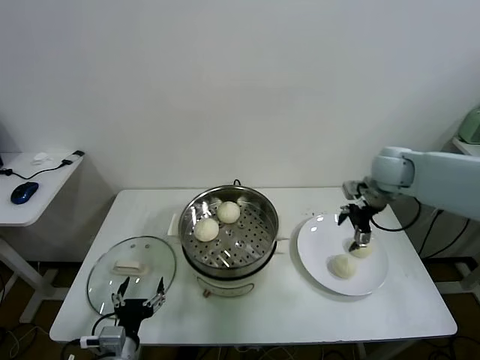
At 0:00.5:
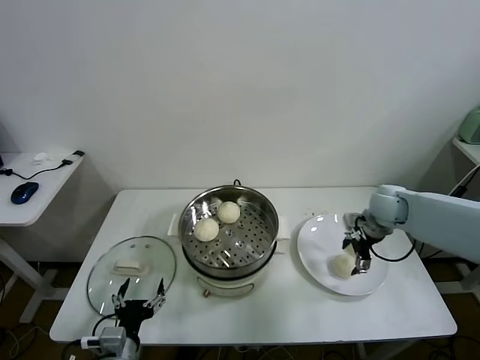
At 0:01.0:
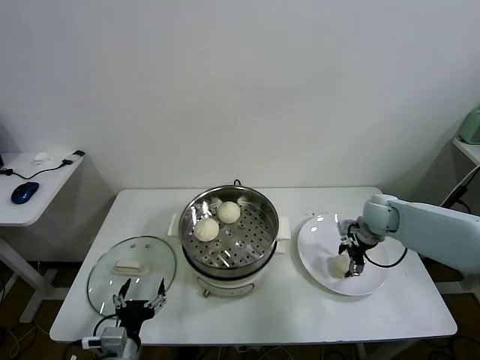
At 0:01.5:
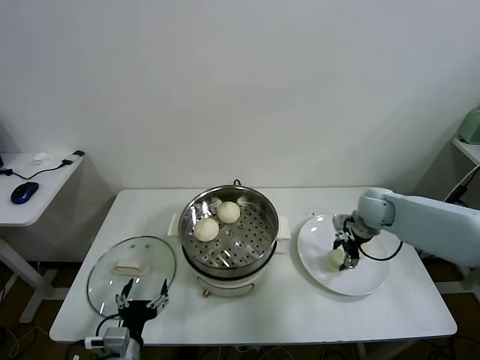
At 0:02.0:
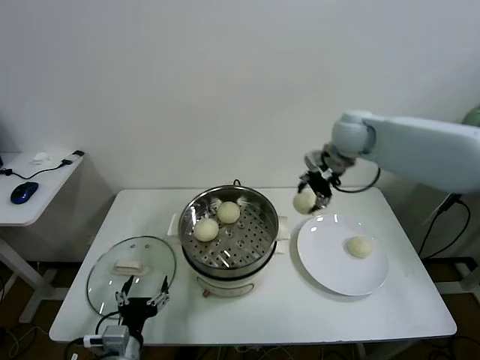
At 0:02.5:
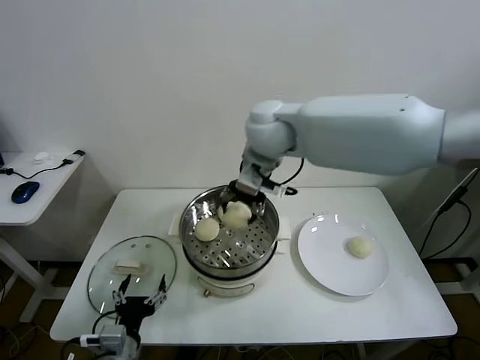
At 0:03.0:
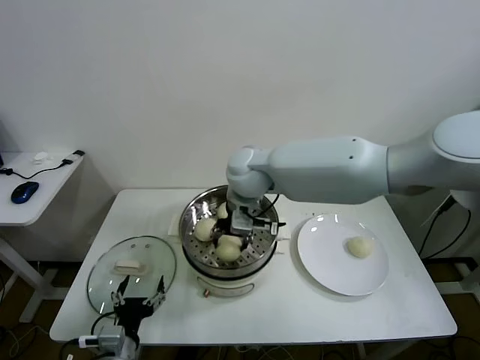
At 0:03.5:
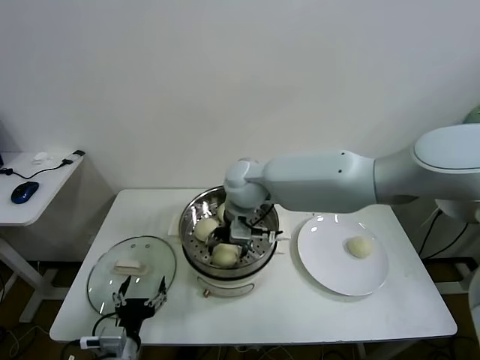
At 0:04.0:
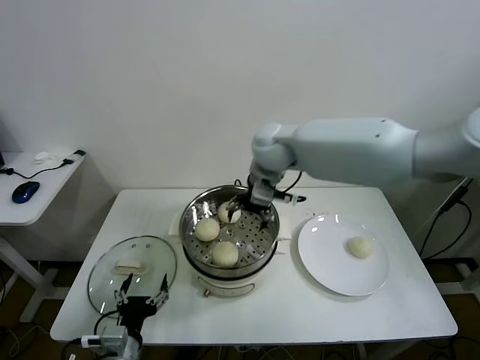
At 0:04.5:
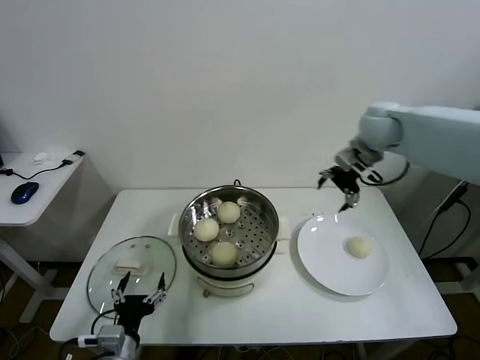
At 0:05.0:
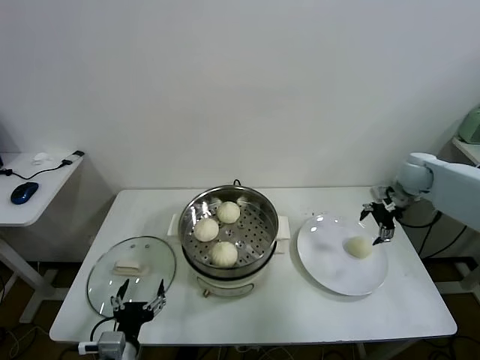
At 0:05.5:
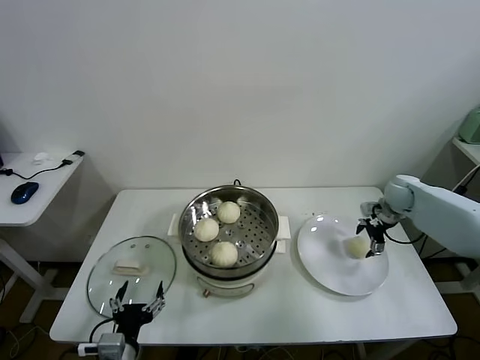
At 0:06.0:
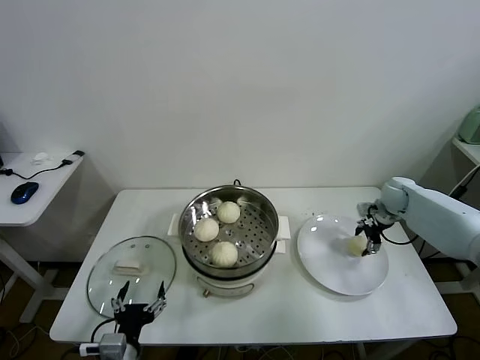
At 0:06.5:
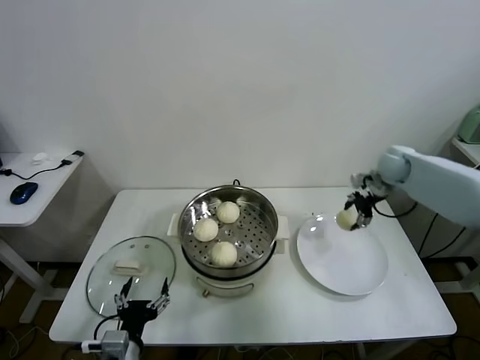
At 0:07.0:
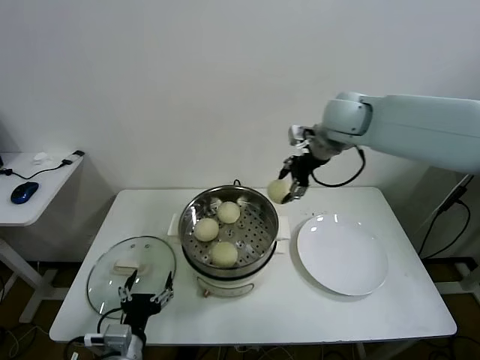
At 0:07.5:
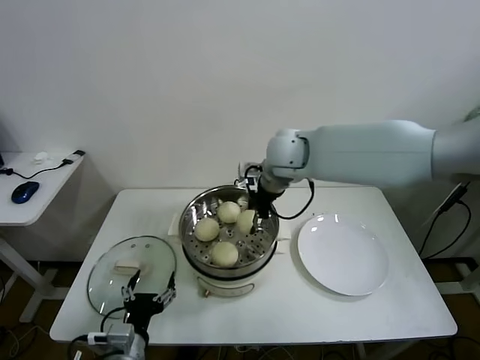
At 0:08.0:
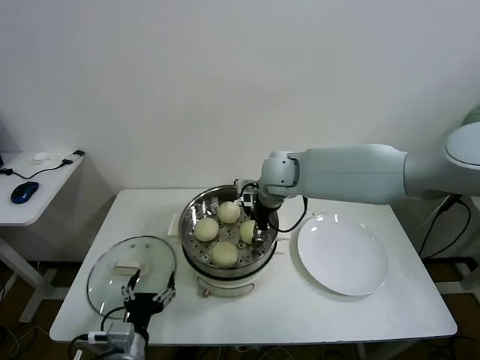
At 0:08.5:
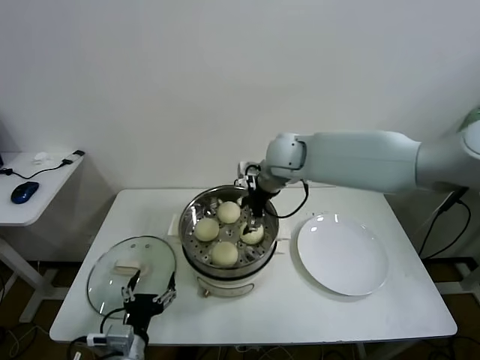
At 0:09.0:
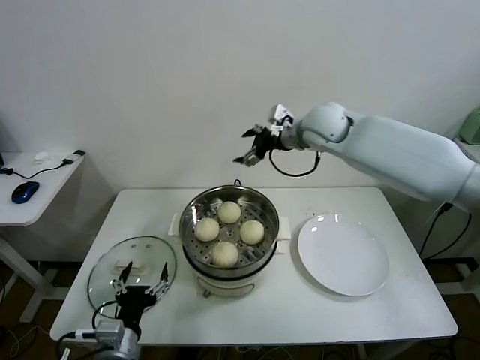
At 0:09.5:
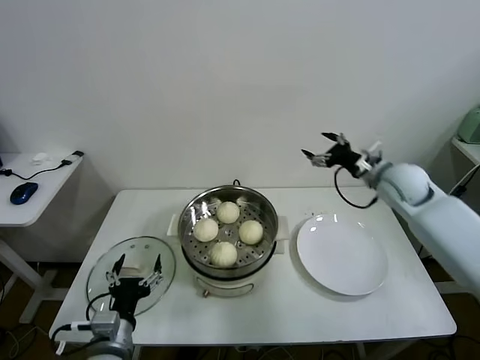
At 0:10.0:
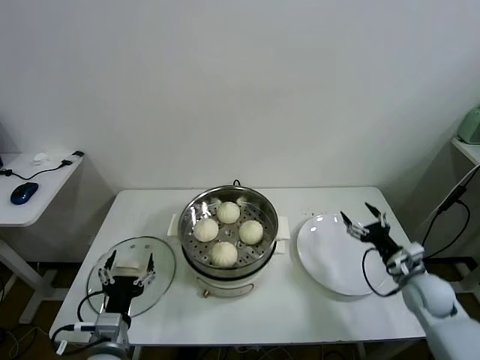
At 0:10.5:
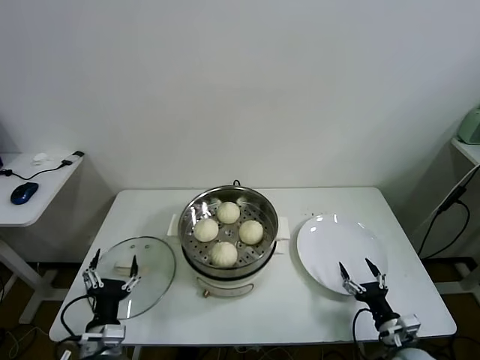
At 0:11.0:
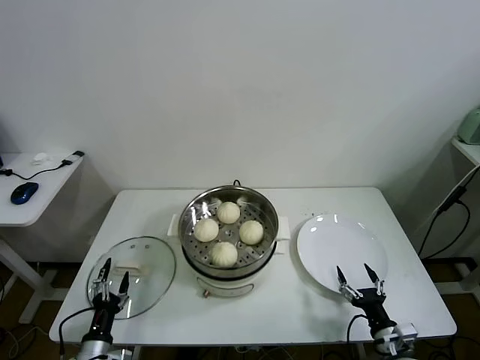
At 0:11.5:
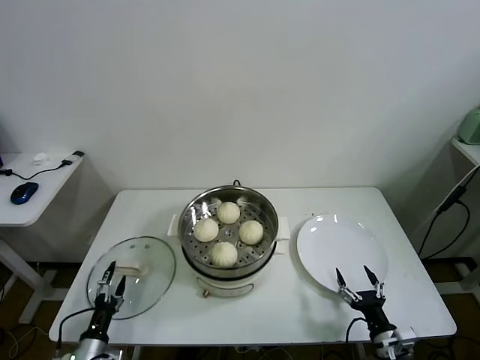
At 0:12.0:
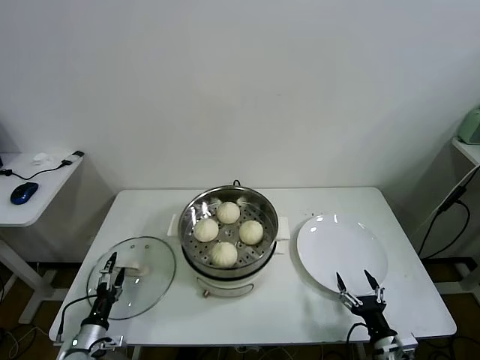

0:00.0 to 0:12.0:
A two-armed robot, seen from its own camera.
Task of the whole recording: take steamed baozi put them in steamer.
Step, 0:00.0 to 0:01.0: Grasp the baozi in the plate with right gripper.
Step, 0:01.5 to 0:03.5: Place the baozi on the steamer with right gripper.
Step, 0:04.0 to 0:06.0: Grasp the baozi in the plate with right gripper.
Step, 0:06.5 to 0:08.0: Place the baozi on the steamer with right gripper.
0:00.0 to 0:02.0: The right gripper is displaced to the left and upward by approximately 15 cm, and closes its fingers.
0:02.0 to 0:04.0: The right gripper travels to the left by approximately 15 cm, and opens.
0:04.0 to 0:06.0: The right gripper moves to the right and downward, some 40 cm, and closes up.
0:06.0 to 0:08.0: The right gripper travels to the left by roughly 35 cm.
0:08.0 to 0:10.0: The right gripper moves to the right, downward and backward, roughly 40 cm, and opens up.
0:10.0 to 0:12.0: The right gripper is displaced backward, downward and to the left by about 20 cm, while the left gripper travels downward and to the left by approximately 20 cm.

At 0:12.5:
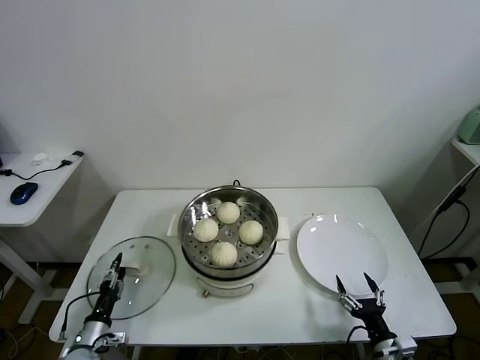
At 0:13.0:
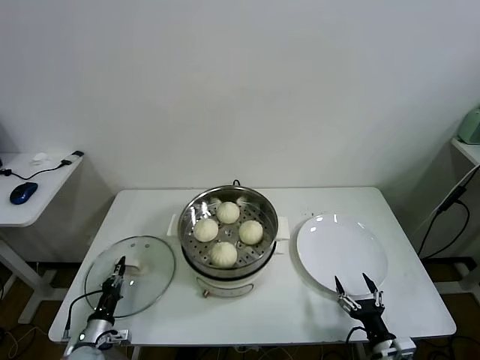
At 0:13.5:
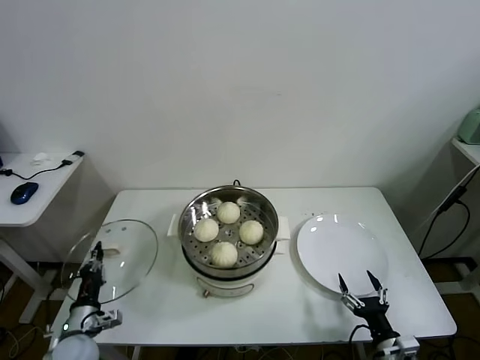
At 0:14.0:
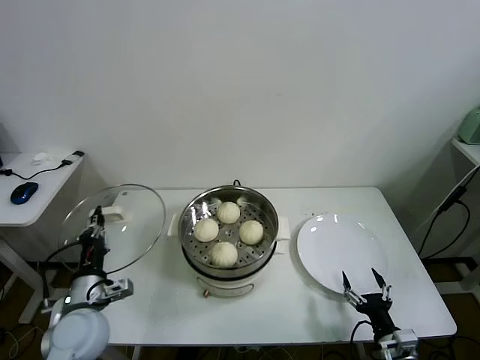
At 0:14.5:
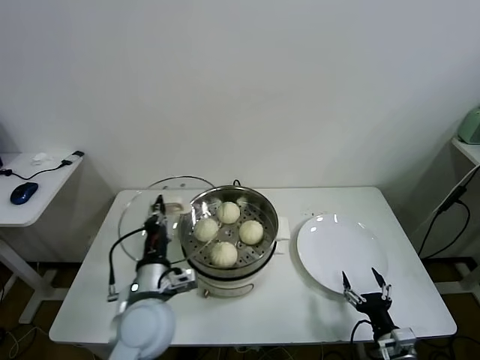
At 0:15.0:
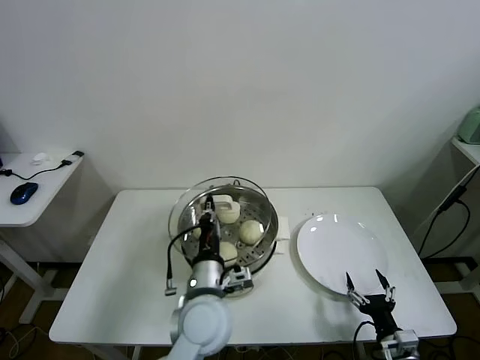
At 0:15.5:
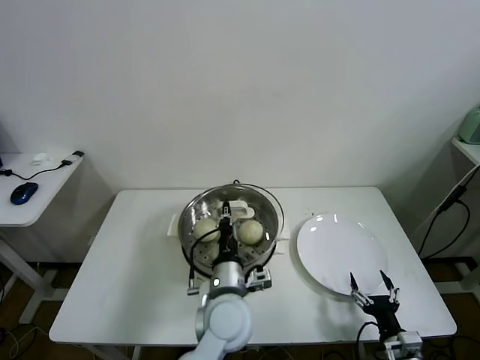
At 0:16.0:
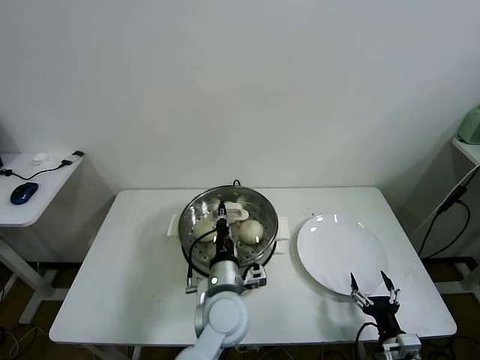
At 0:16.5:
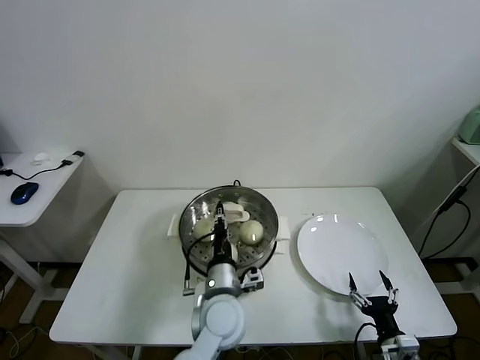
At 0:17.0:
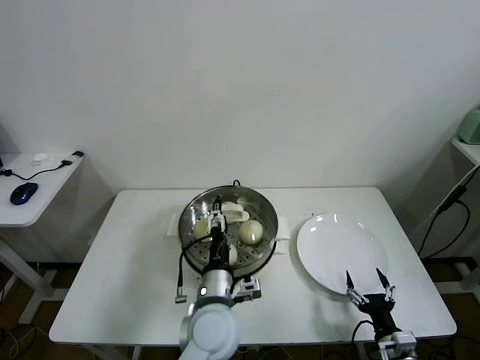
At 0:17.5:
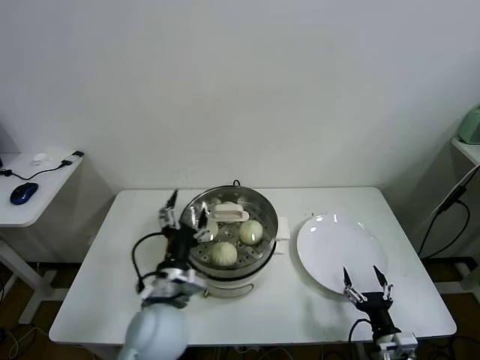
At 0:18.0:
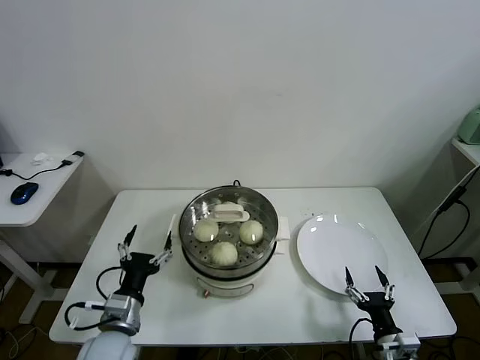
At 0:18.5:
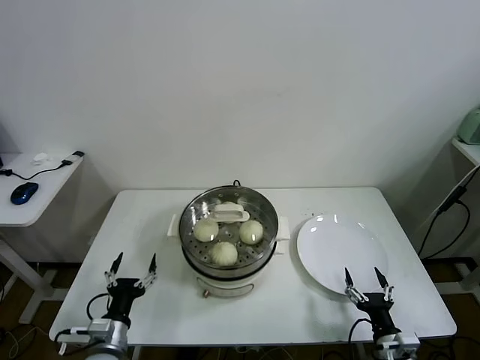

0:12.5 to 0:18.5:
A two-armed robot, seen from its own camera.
Task of the whole recording: take steamed baozi put them in steamer.
Step, 0:13.5 to 0:16.5: Place the pot lid on the steamer with left gripper.
0:12.5 to 0:14.5: The left gripper moves upward and to the right, roughly 30 cm, and closes its fingers.
0:14.5 to 0:16.5: The left gripper is displaced to the right by some 15 cm.
0:16.5 to 0:18.5: The left gripper travels to the left by about 25 cm, and opens.

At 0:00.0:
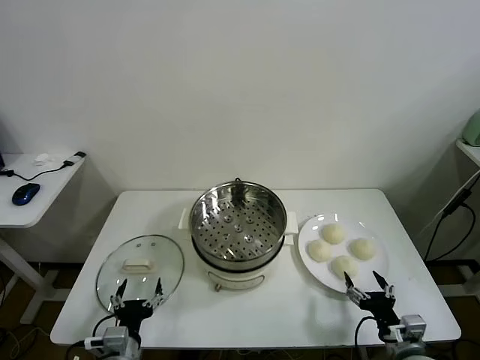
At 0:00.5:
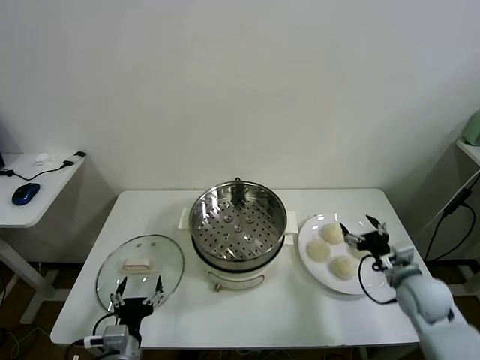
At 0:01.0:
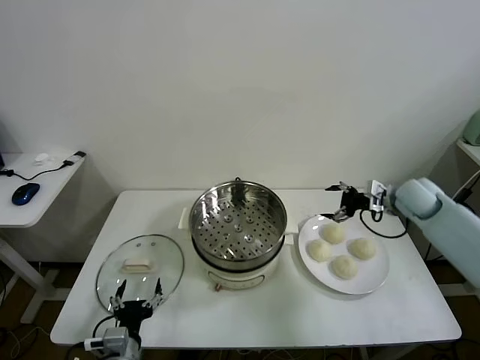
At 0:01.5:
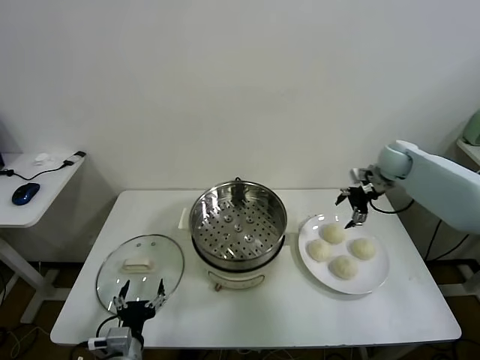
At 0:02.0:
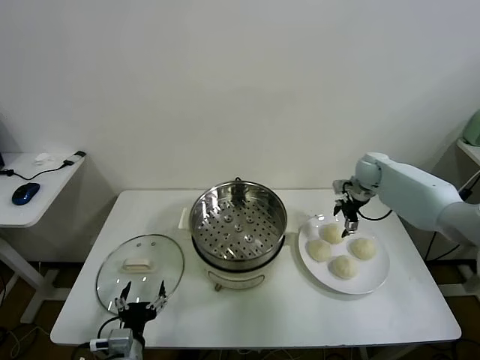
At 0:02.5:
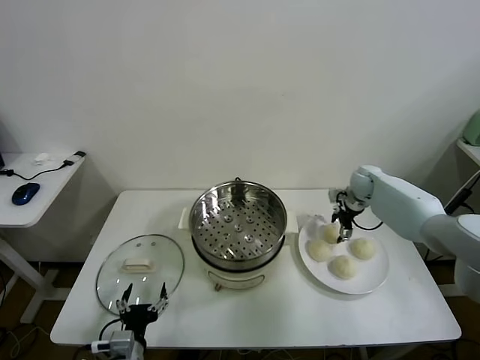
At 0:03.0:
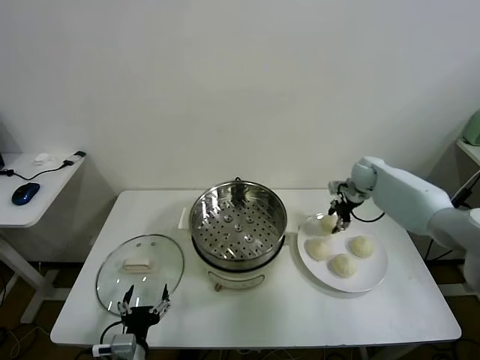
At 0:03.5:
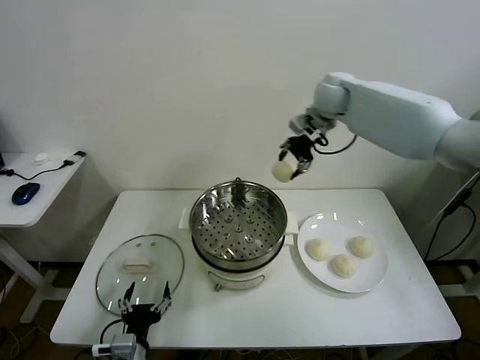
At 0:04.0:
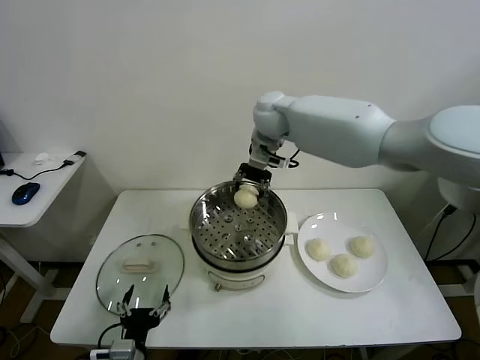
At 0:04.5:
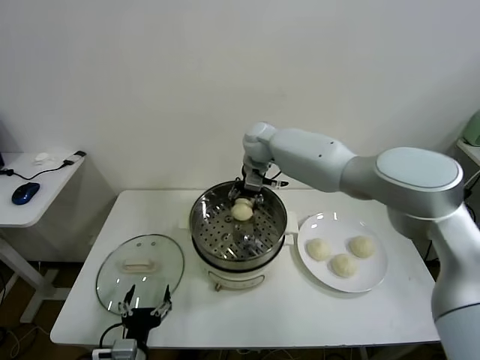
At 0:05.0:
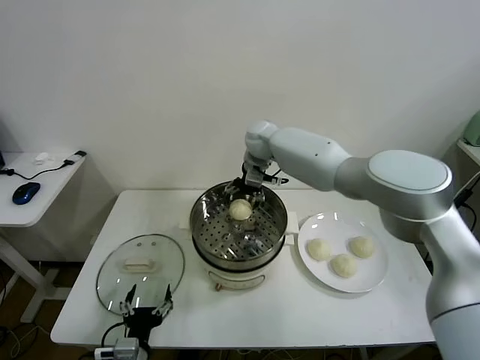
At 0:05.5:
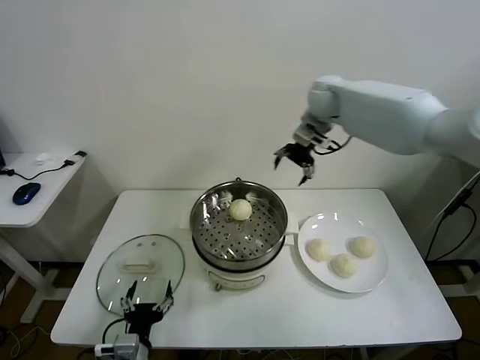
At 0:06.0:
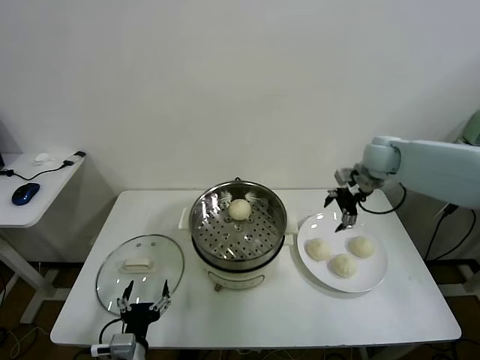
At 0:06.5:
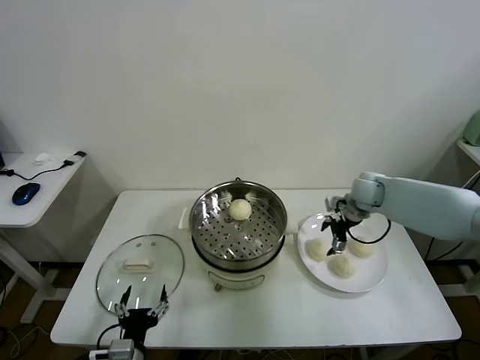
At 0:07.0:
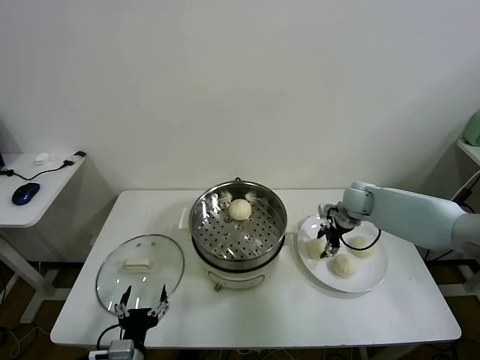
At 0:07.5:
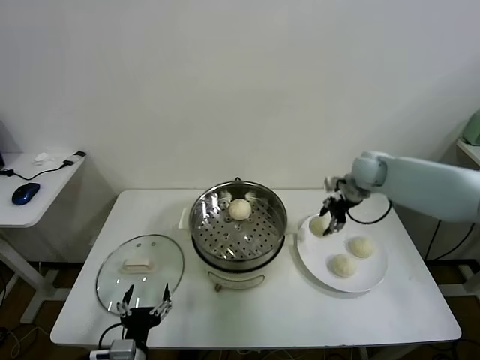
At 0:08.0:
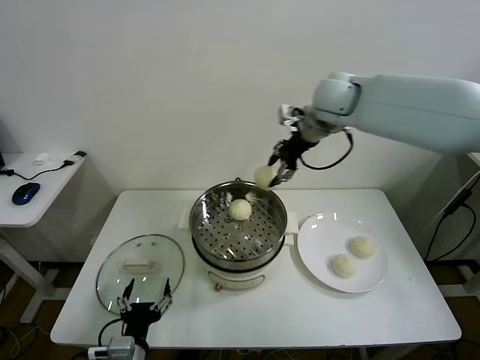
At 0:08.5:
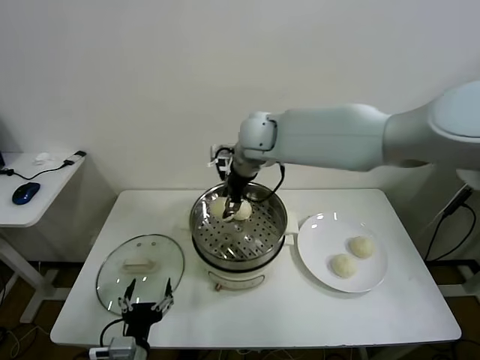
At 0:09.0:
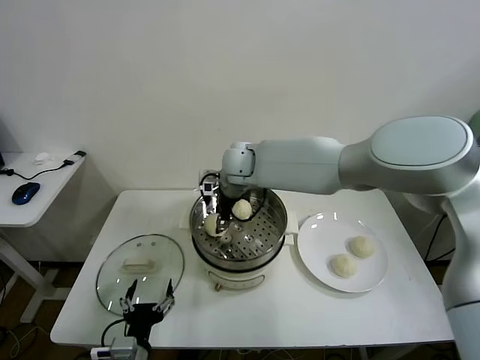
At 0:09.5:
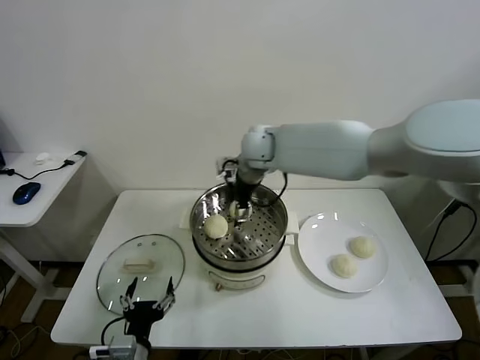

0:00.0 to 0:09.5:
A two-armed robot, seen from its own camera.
Task of the whole recording: take steamed baozi put them in steamer.
Step, 0:00.0 to 0:02.5: Grasp the baozi in the plate with right gripper.
Step, 0:03.0 to 0:04.5: Place the baozi on the steamer with right gripper.
Step, 0:05.5 to 0:07.0: Grasp the baozi in the plate with right gripper.
Step, 0:07.5 to 0:09.0: Place the baozi on the steamer with right gripper.
0:02.0 to 0:04.0: The right gripper moves to the left and upward, about 35 cm, and closes its fingers.
0:04.0 to 0:05.5: The right gripper moves to the right, approximately 15 cm, and opens up.
0:05.5 to 0:07.5: The right gripper travels downward, to the right and backward by roughly 20 cm, and closes up.
0:07.5 to 0:09.5: The right gripper heads to the left, covering approximately 25 cm, and opens up.
